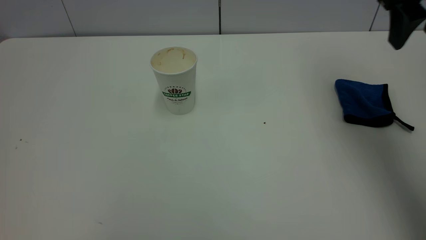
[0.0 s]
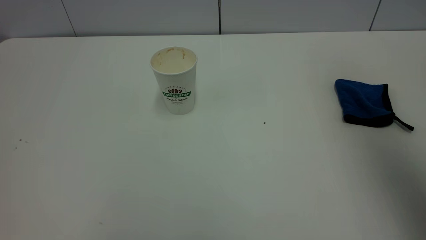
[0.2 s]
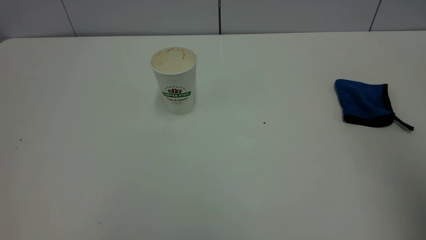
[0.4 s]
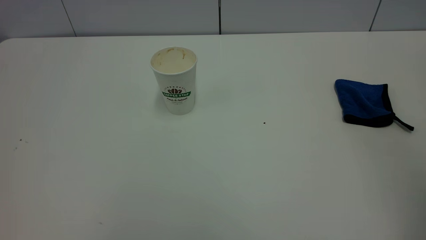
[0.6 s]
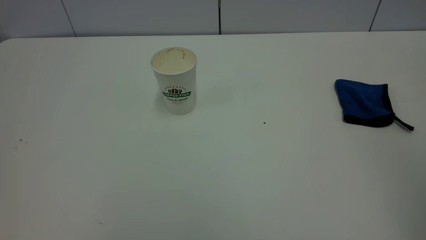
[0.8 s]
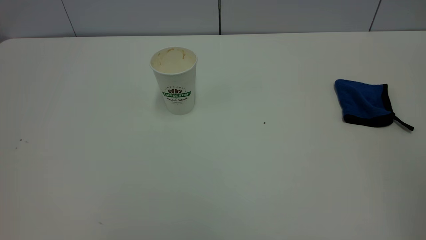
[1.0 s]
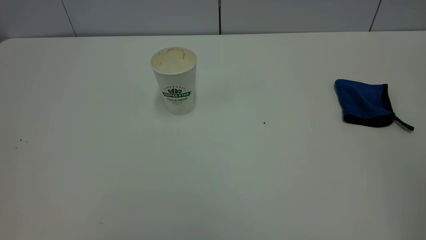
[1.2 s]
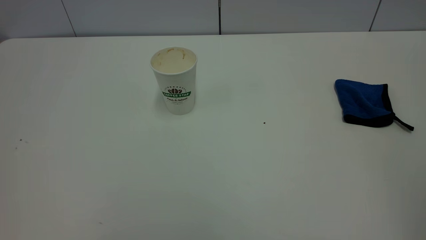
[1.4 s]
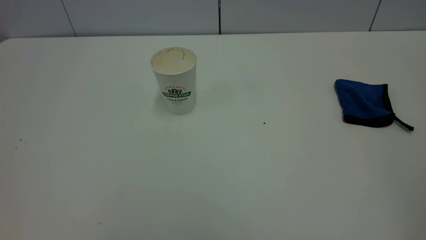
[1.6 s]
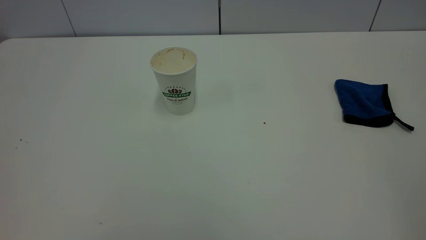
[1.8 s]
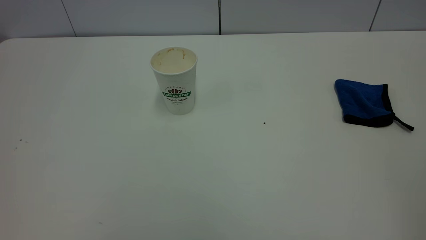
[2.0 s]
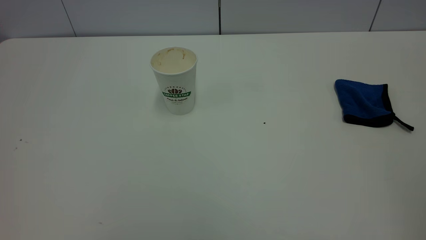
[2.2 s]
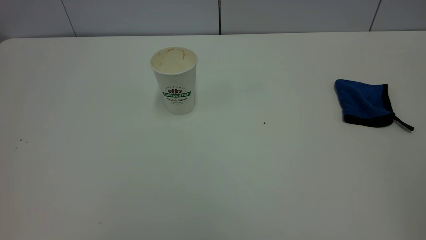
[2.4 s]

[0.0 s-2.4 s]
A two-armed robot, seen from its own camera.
Task of the whole recording: the left gripper pick up the fallen cup and place it upright, the right gripper grasp the blue rag and wipe the tea stain on the table, the right gripper put the blue rag back in its original position.
0.0 to 1.2 s: The right gripper heads backward, covering roughly 30 cm.
